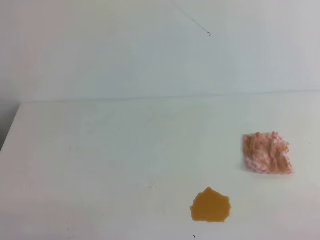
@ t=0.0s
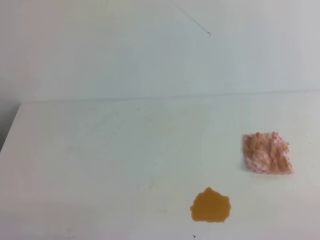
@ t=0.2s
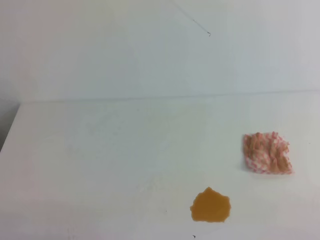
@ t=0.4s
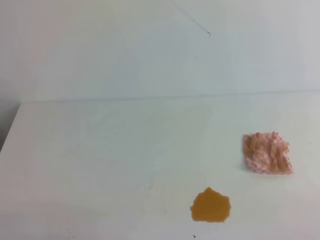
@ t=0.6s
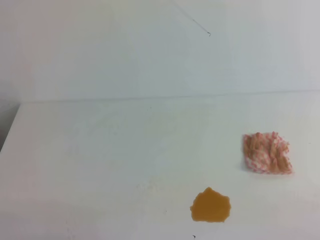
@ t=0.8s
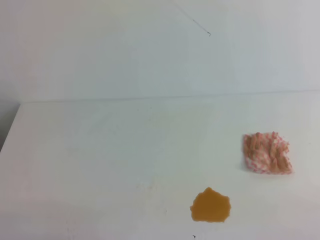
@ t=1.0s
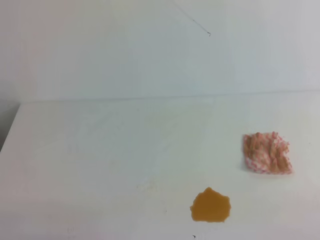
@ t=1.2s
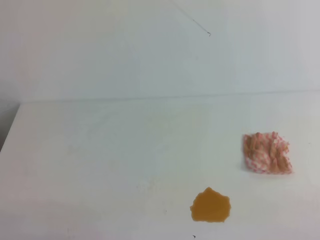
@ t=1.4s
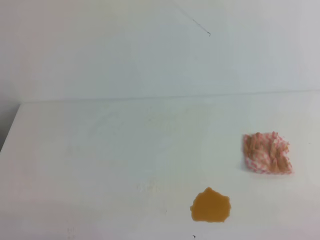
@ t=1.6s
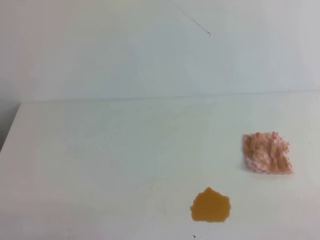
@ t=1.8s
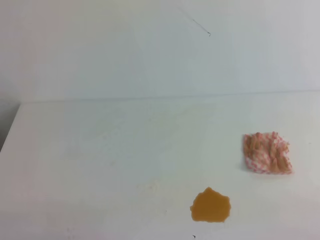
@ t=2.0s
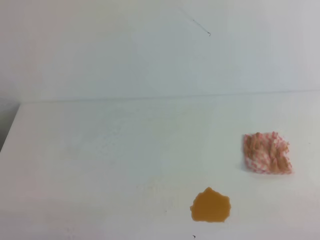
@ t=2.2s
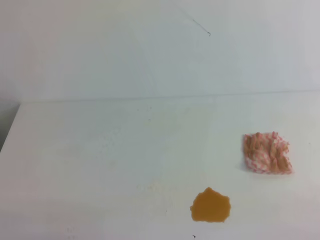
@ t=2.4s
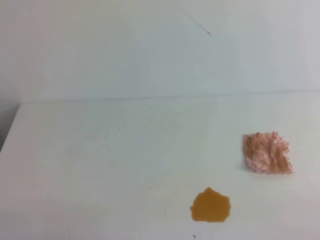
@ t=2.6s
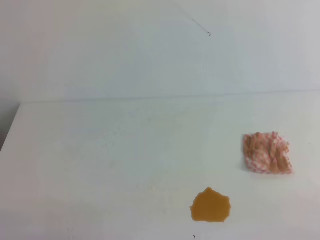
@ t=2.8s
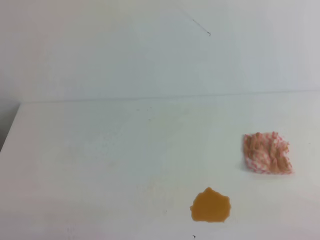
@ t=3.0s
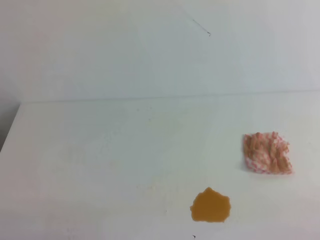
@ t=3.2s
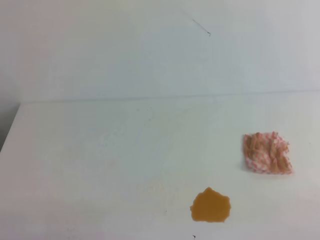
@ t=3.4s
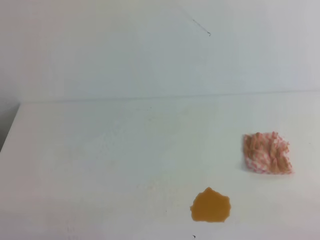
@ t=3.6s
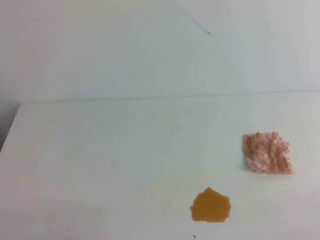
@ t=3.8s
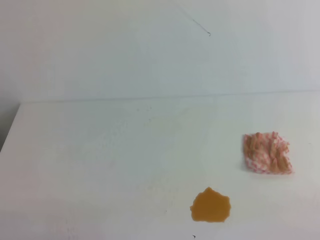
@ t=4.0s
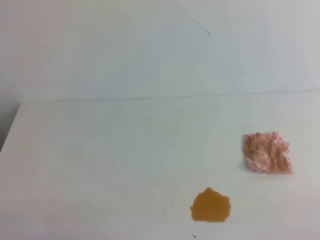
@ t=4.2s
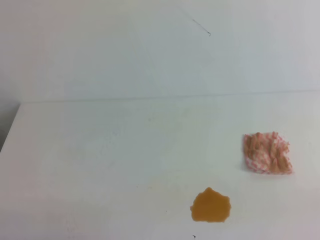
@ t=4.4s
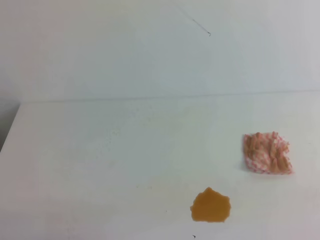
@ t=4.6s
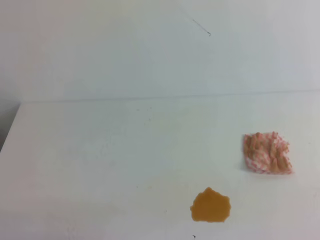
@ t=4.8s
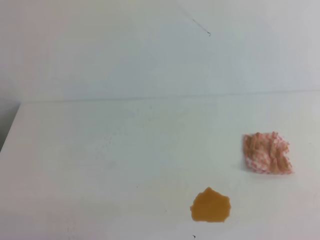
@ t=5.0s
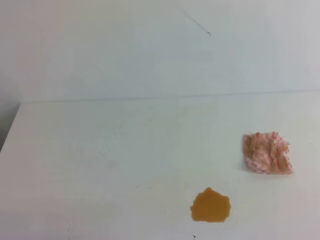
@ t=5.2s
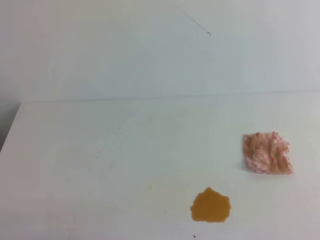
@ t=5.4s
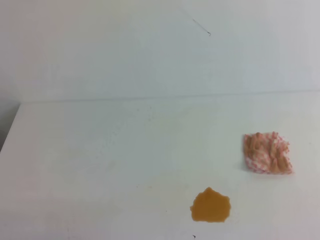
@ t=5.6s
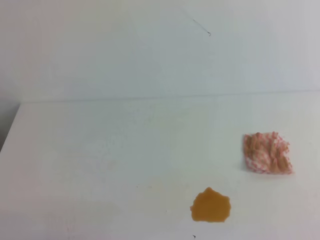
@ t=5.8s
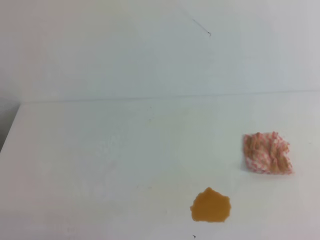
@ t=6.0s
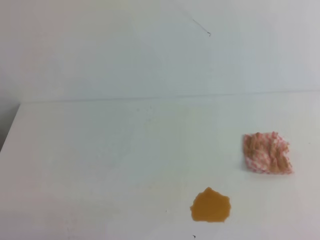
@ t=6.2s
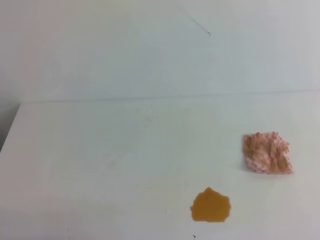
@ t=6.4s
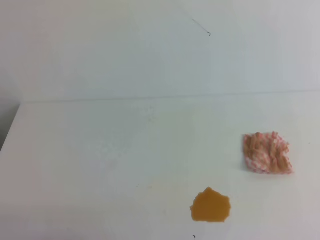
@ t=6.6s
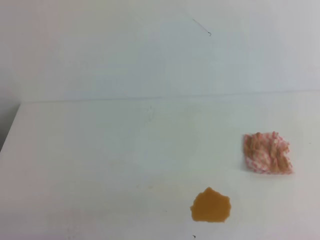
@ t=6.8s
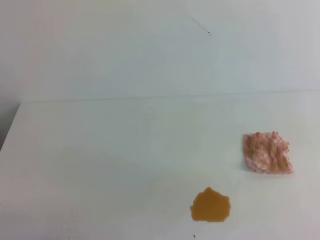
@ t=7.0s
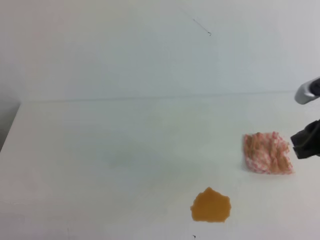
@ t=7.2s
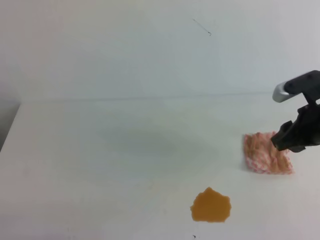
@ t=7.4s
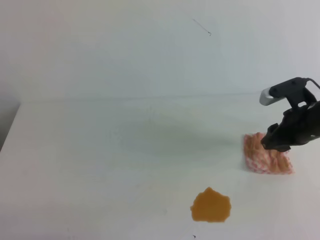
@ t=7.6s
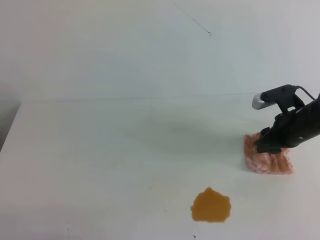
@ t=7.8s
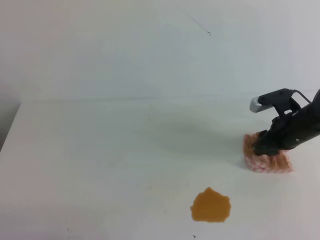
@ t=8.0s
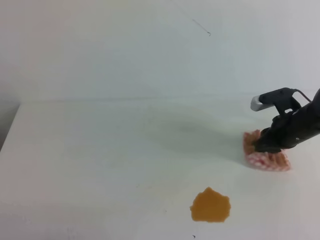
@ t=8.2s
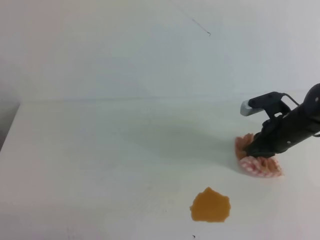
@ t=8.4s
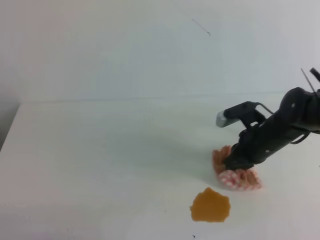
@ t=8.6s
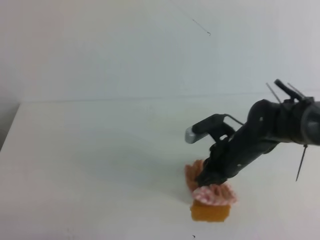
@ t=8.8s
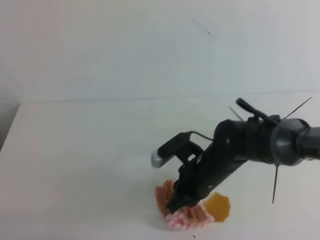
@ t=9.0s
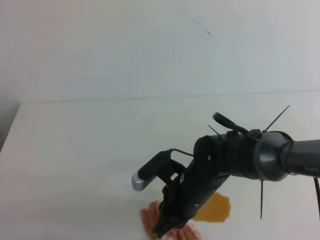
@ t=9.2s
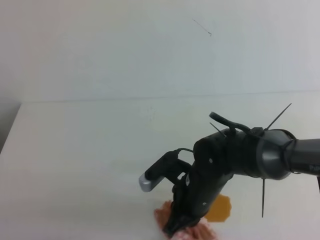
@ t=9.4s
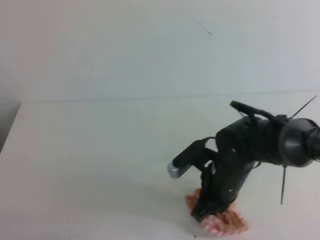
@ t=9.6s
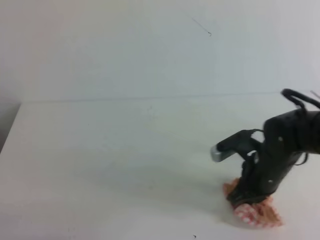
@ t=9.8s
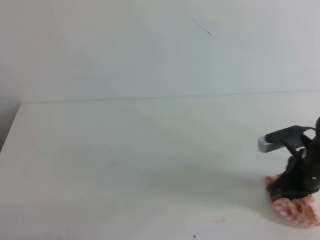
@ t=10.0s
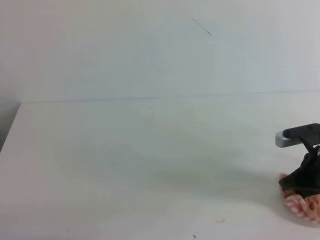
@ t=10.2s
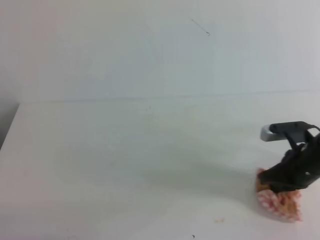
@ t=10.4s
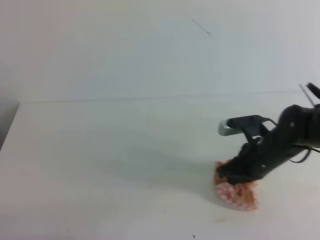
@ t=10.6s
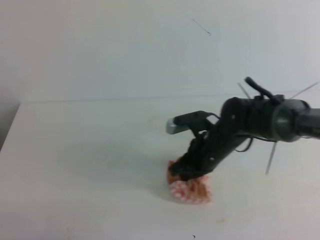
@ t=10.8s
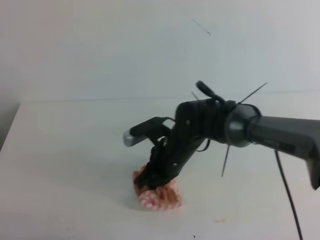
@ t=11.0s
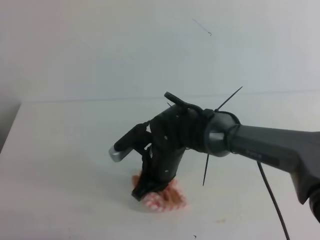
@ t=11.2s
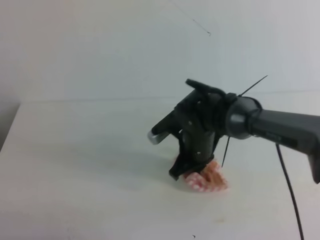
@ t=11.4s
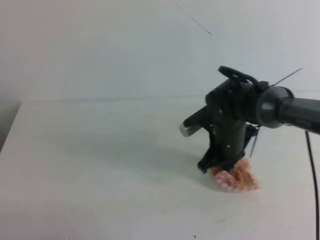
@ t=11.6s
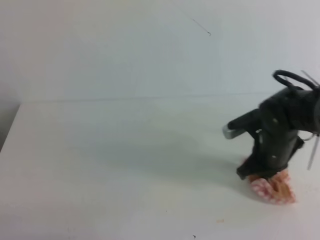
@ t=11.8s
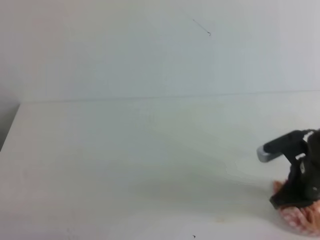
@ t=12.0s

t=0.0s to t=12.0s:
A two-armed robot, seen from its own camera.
t=0.0s to t=3.0s: Neither gripper changes place.
t=6.0s to t=7.6s: The right gripper shifts about 35 cm forward, and opens its fingers.
t=7.6s to t=9.0s: The right gripper is displaced to the left by approximately 15 cm, and closes up.
t=9.0s to t=10.4s: The right gripper goes roughly 15 cm to the right.
t=10.4s to t=12.0s: The right gripper reaches some 25 cm to the left, then returns.

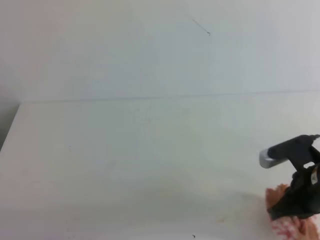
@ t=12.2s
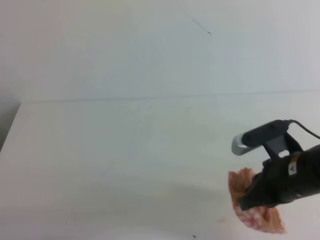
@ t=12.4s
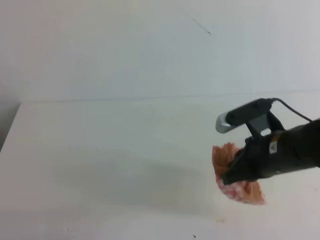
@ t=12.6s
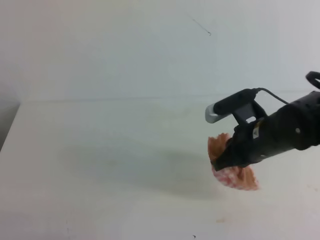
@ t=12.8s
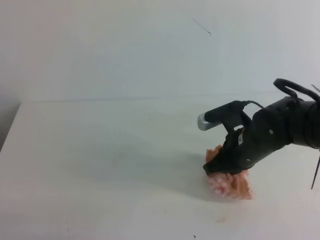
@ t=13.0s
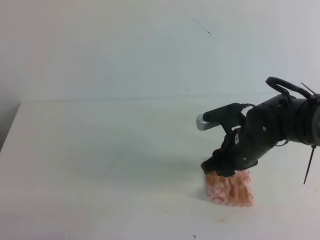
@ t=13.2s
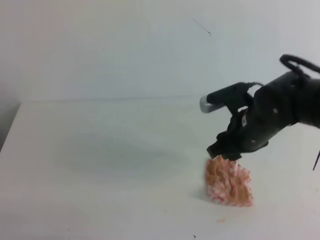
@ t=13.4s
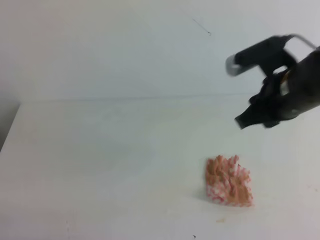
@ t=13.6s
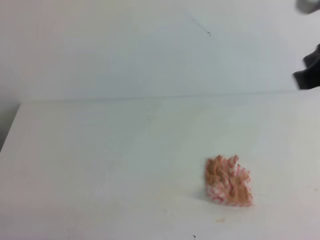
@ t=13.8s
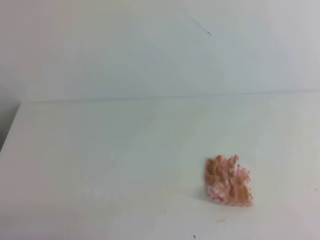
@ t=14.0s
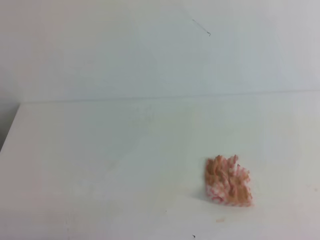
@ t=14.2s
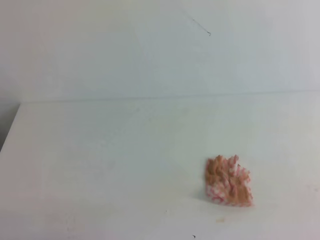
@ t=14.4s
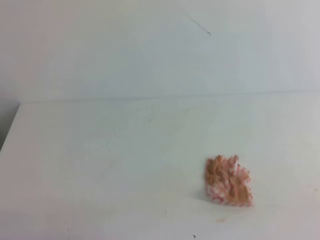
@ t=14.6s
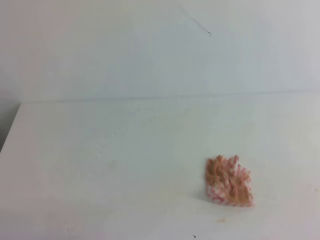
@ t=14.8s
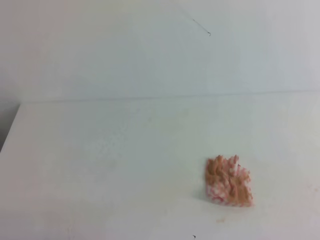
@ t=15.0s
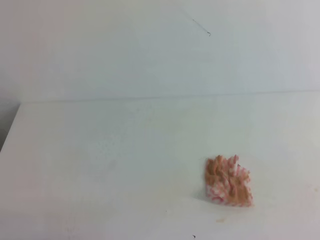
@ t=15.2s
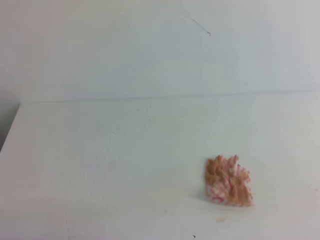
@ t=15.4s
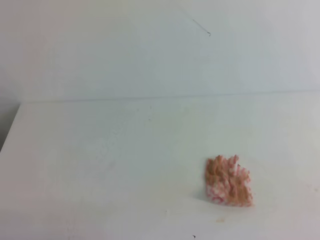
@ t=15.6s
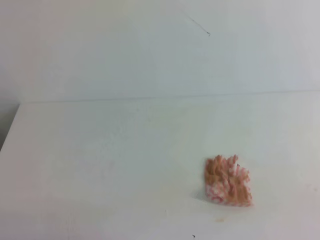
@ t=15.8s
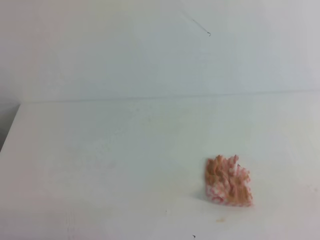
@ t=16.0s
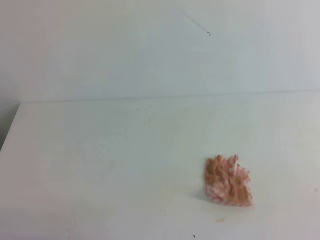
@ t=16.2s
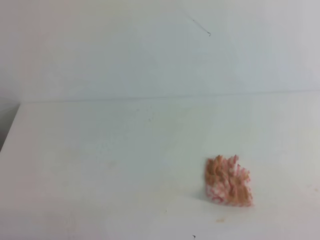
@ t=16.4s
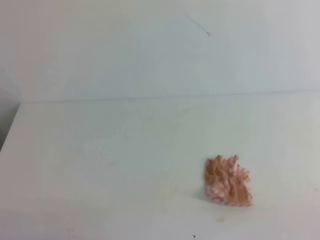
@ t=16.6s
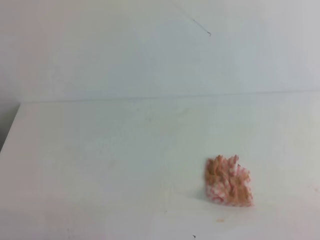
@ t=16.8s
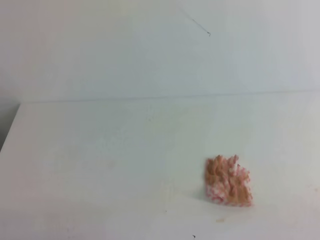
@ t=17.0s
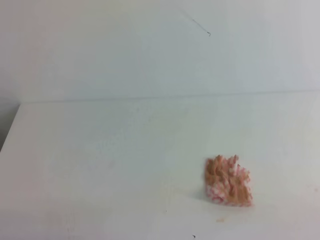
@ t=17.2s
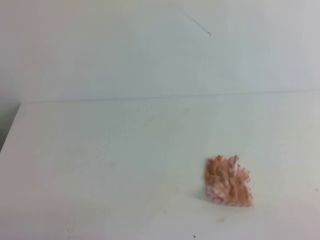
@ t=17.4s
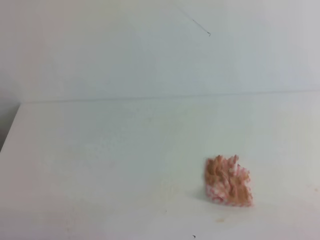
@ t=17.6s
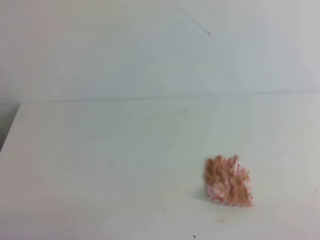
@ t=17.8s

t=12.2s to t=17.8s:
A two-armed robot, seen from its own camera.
t=12.2s to t=13.6s: The right gripper goes approximately 15 cm upward and to the left, and opens up.
t=13.6s to t=15.0s: The right gripper shifts approximately 30 cm backward and to the right, and closes.
